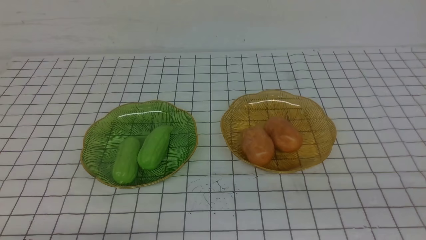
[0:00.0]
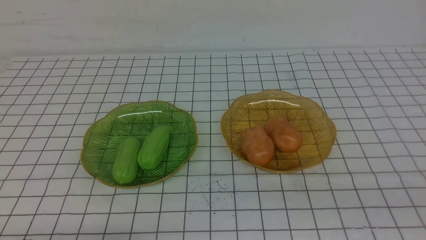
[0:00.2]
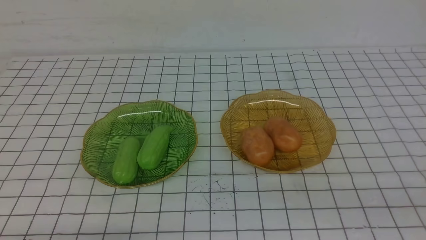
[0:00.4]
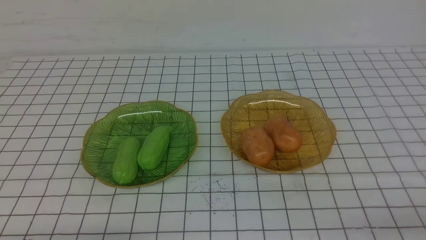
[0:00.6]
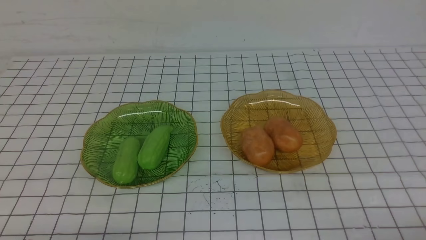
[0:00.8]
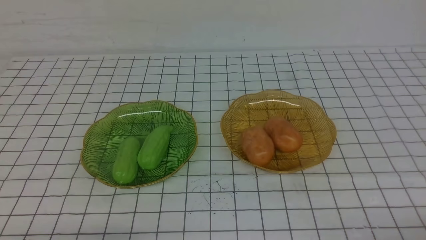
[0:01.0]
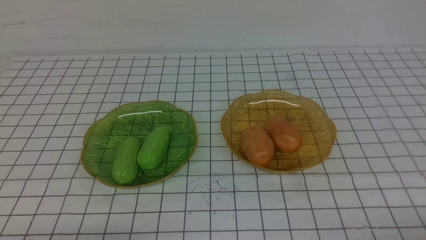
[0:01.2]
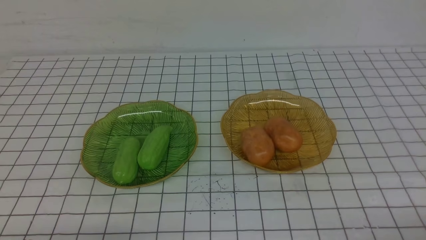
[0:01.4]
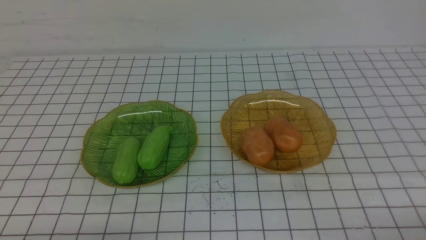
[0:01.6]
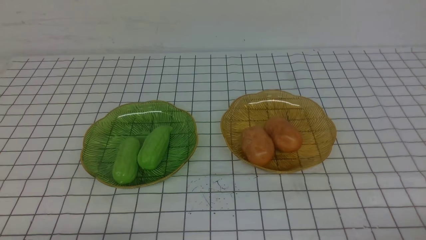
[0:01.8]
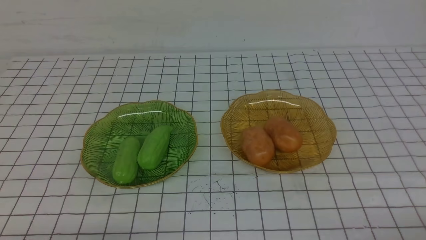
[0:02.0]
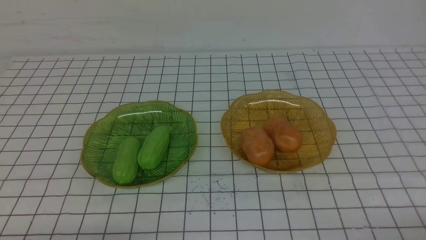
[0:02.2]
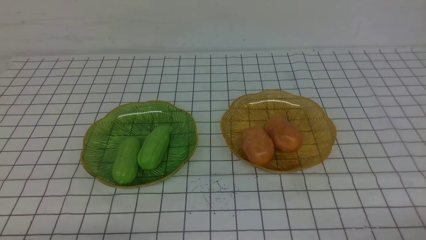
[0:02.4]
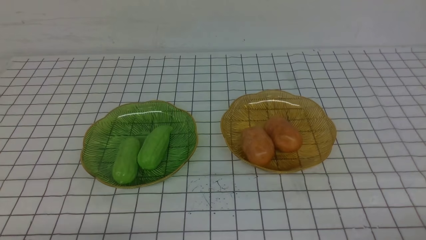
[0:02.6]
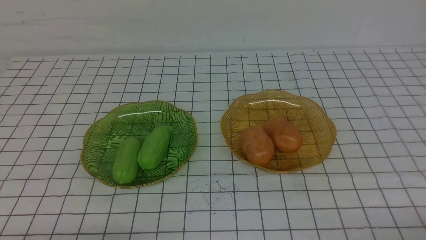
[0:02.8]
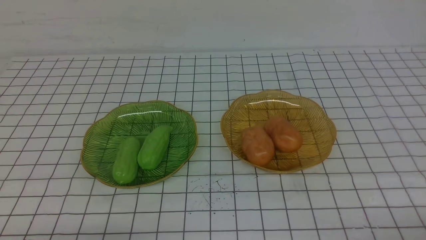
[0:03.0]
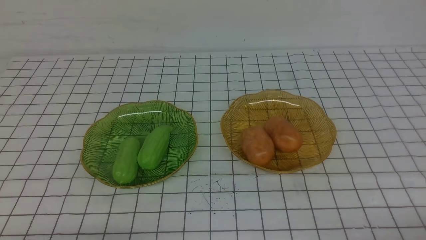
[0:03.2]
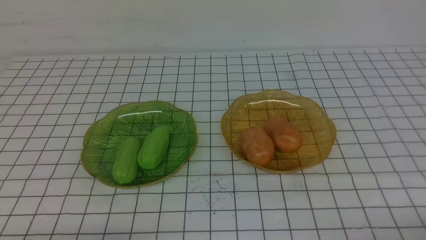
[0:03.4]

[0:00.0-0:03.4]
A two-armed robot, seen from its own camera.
0:01.6 to 0:03.4: Both grippers stay about where they are.
